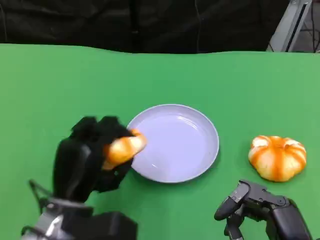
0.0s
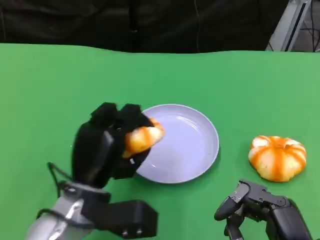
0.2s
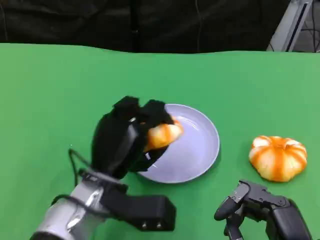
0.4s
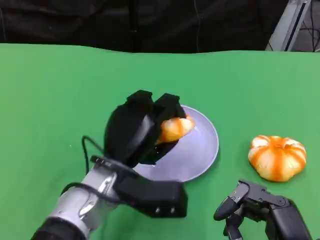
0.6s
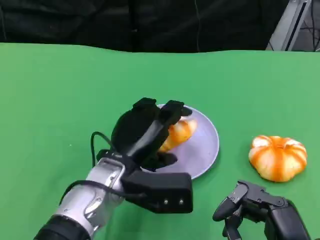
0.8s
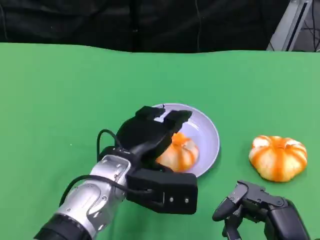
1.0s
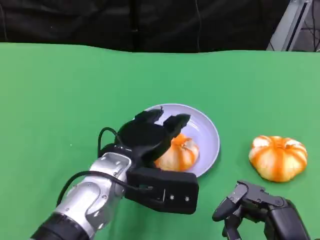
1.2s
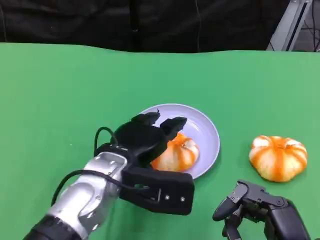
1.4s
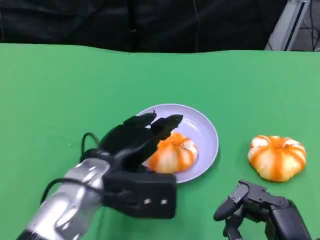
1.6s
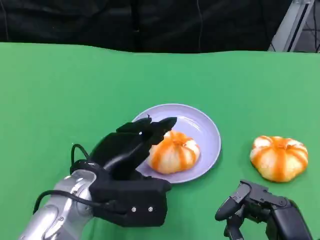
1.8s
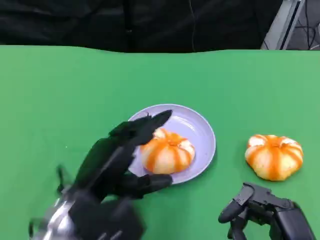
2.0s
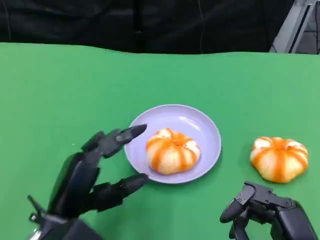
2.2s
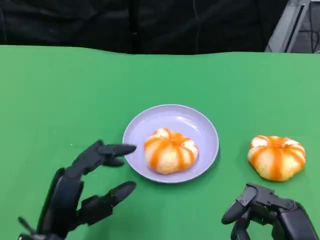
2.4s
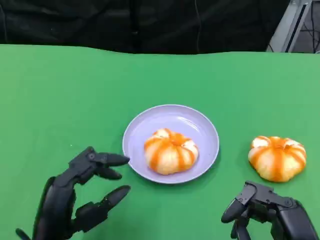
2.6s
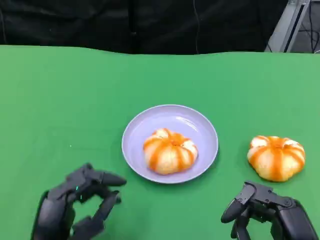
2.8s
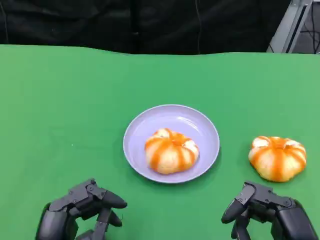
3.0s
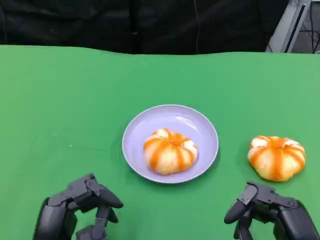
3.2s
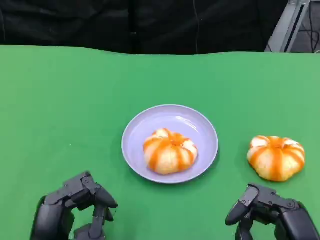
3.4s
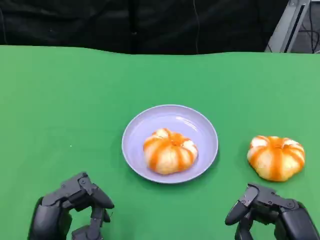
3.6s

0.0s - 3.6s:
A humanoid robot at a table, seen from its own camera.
Task of the whole recording: Grasp the bread from the table and place it into the plate.
1.8s - 3.6s: The left hand heads backward, to the left and downward, covering roughly 15 cm.

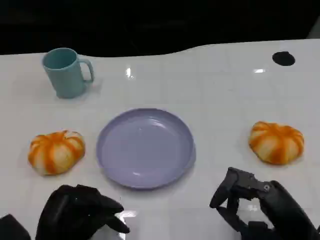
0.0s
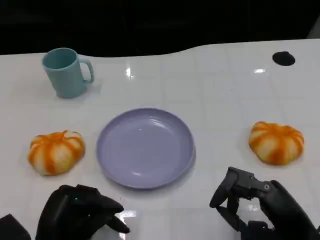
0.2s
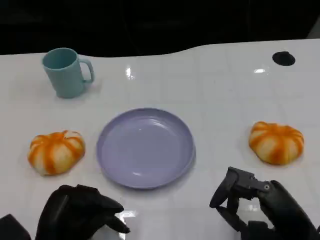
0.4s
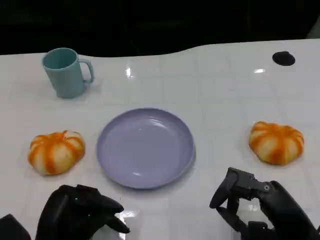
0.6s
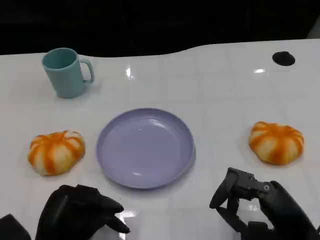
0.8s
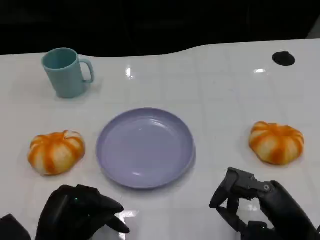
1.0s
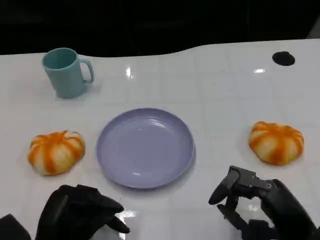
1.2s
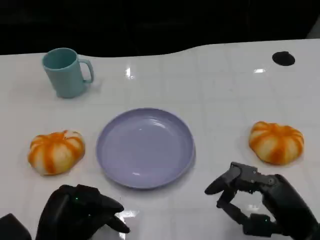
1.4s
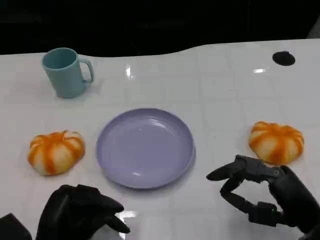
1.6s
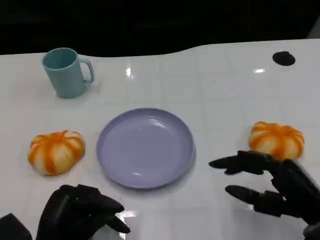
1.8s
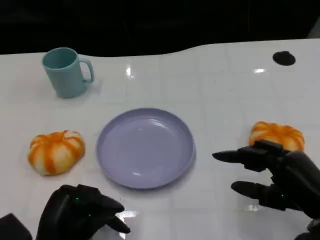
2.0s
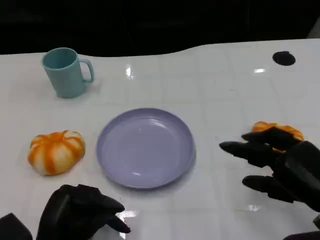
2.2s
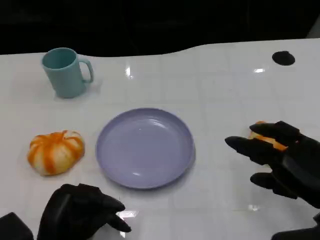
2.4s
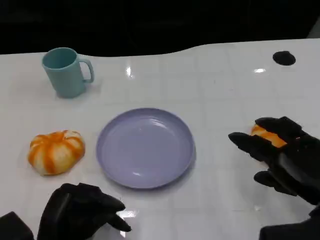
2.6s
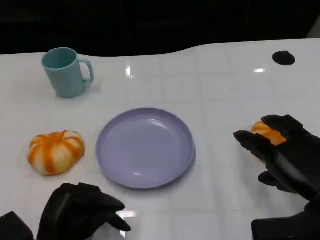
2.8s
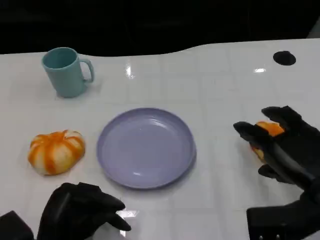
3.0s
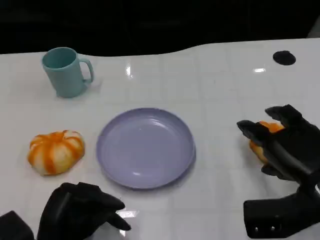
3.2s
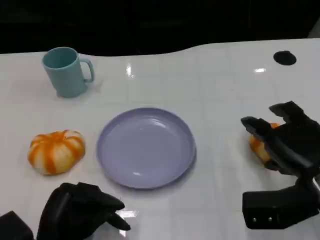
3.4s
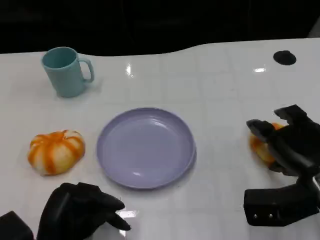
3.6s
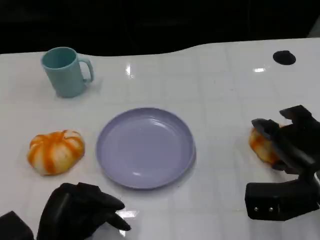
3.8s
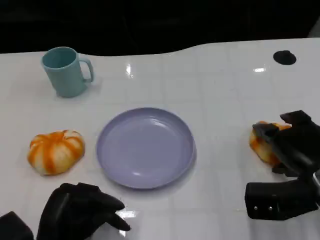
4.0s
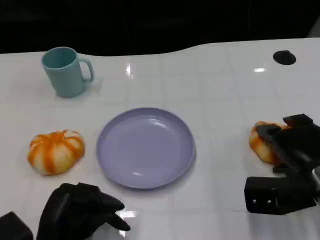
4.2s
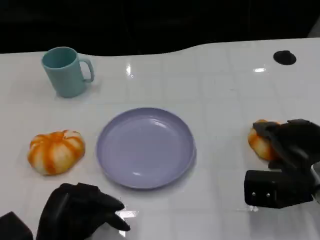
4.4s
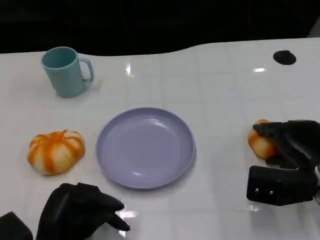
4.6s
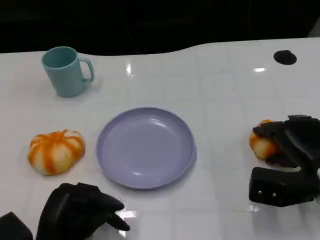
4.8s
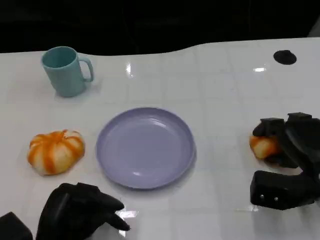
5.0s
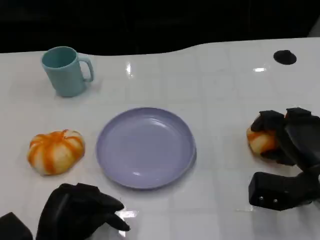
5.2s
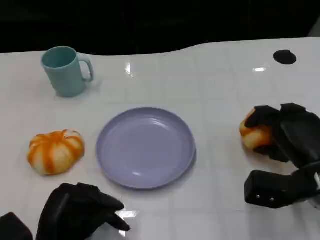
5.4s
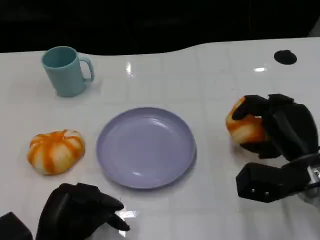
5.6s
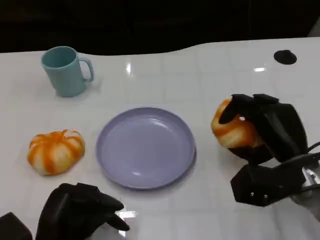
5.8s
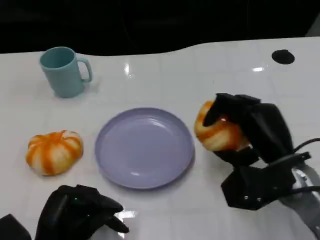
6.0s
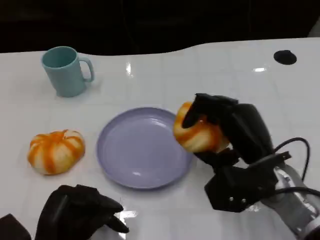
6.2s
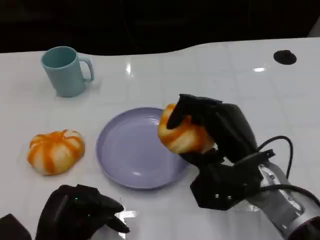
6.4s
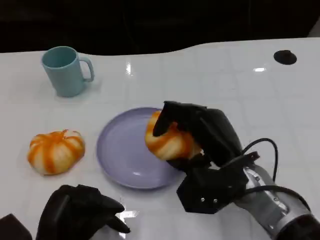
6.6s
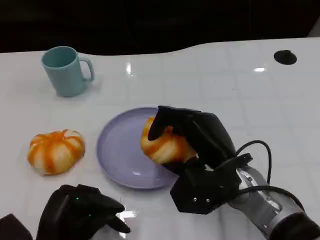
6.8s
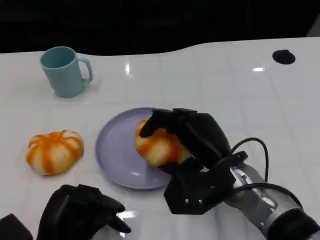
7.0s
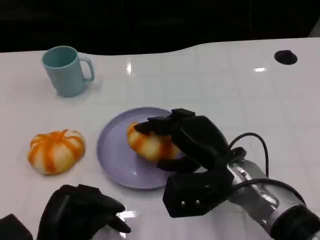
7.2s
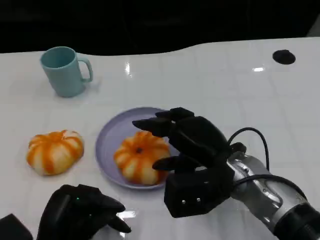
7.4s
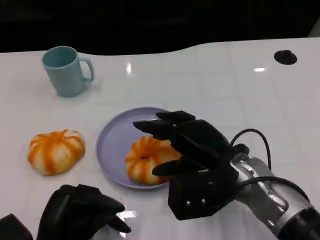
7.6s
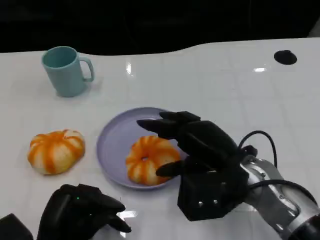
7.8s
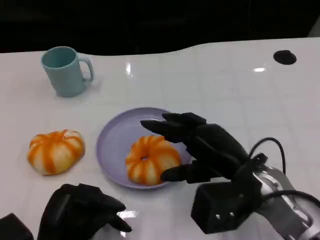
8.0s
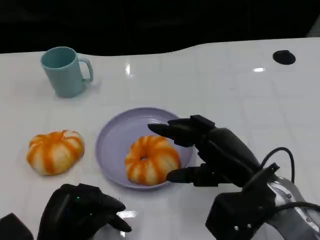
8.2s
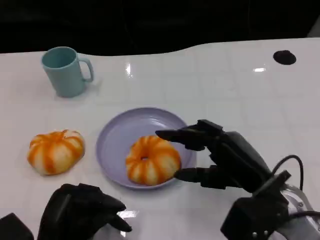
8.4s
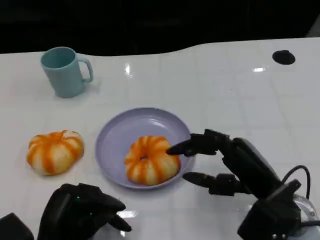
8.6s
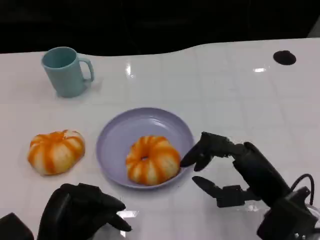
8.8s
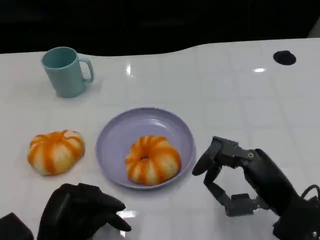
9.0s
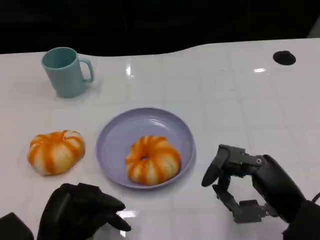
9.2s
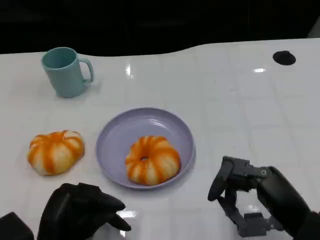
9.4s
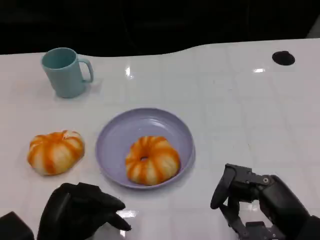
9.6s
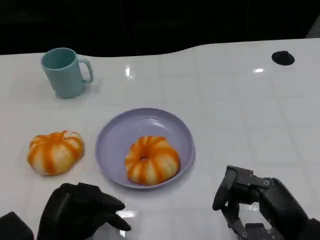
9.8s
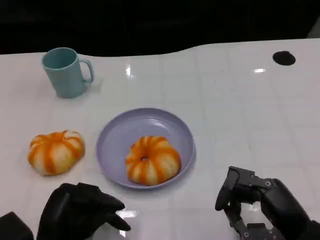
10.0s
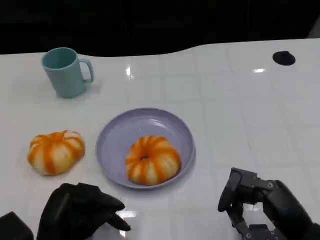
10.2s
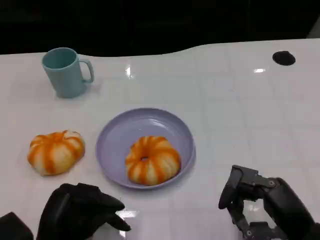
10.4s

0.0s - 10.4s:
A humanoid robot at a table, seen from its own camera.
Task of the whole recording: Grasp the bread from the table and place it into the plate.
0.0s - 1.4s: Both hands stay about where they are.
1.4s - 3.0s: The right hand heads forward, covering approximately 5 cm.
3.0s - 4.4s: The right hand ends up approximately 5 cm from where it was.
4.4s - 6.0s: The right hand is displaced to the left by approximately 5 cm.
6.0s - 7.4s: The right hand travels to the left by some 5 cm.
7.4s - 9.0s: The right hand is displaced to the right and backward by approximately 10 cm.
9.0s - 10.4s: There are only small adjustments of the hands.

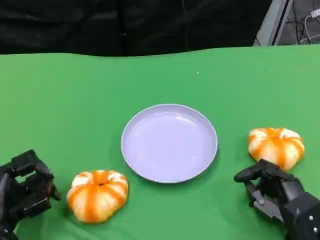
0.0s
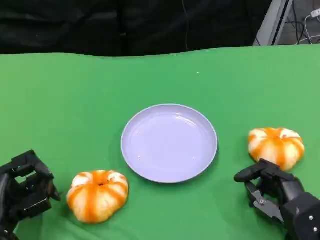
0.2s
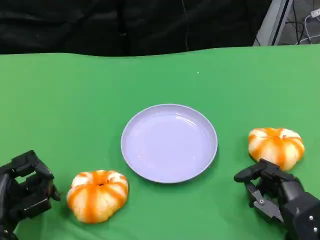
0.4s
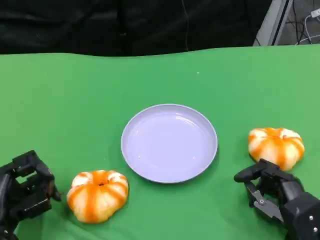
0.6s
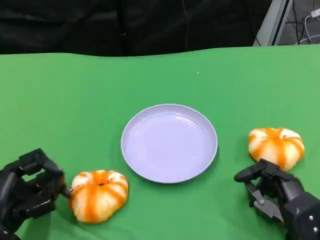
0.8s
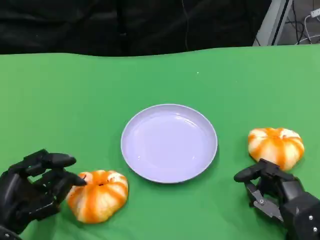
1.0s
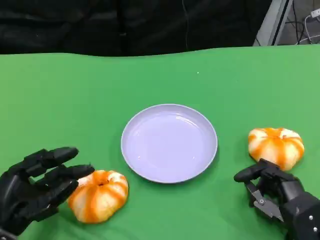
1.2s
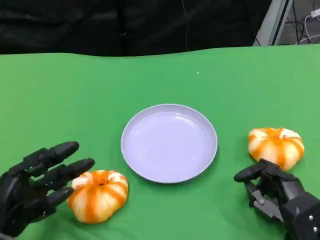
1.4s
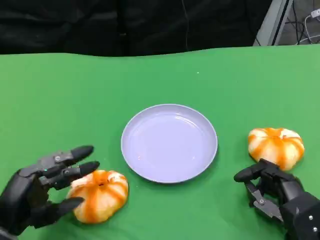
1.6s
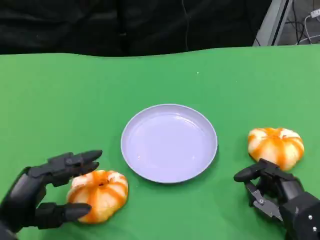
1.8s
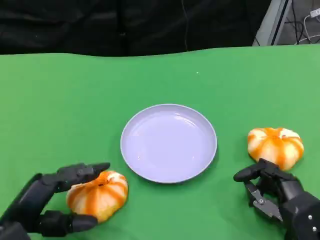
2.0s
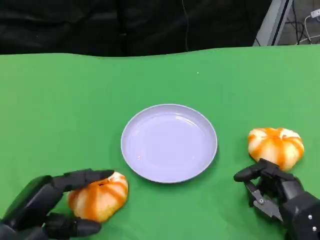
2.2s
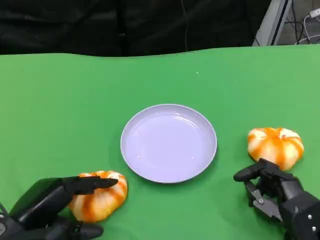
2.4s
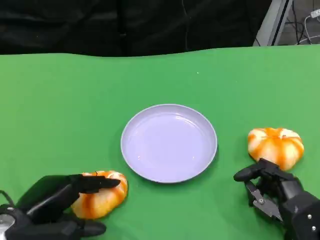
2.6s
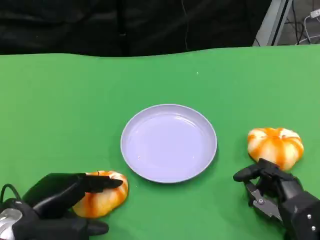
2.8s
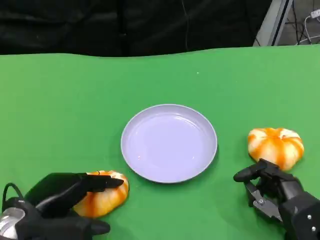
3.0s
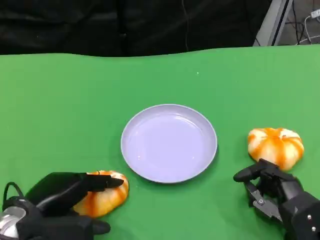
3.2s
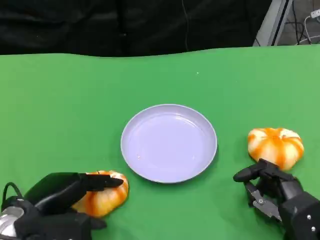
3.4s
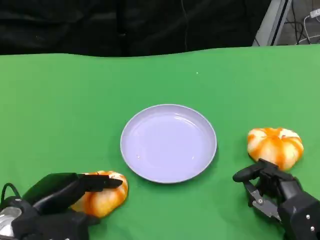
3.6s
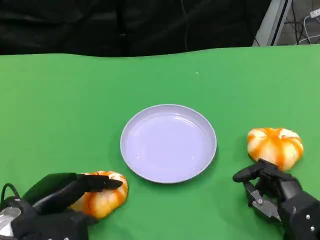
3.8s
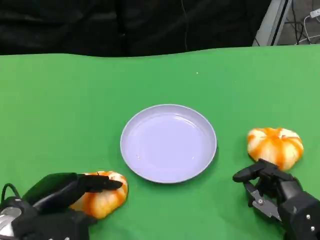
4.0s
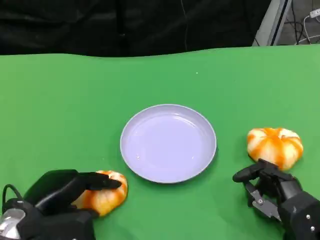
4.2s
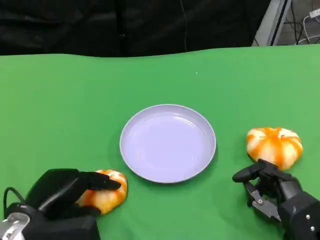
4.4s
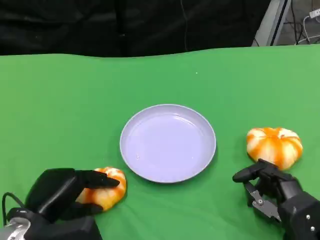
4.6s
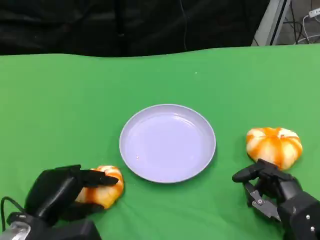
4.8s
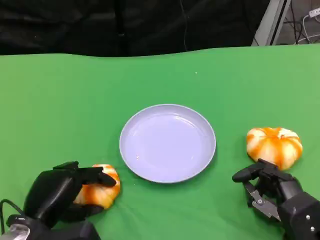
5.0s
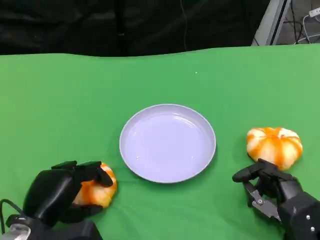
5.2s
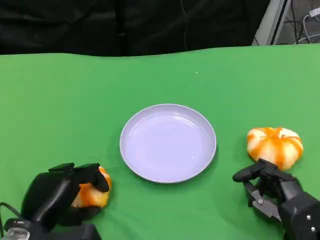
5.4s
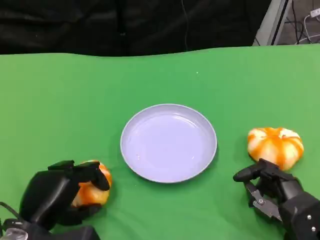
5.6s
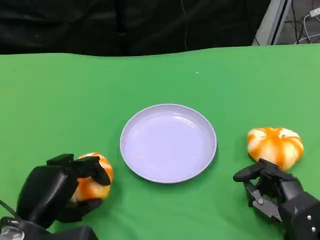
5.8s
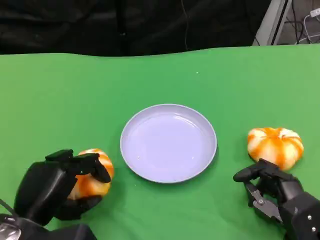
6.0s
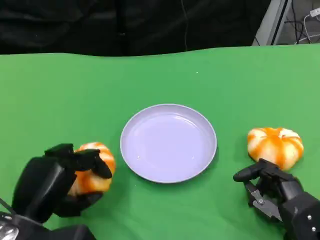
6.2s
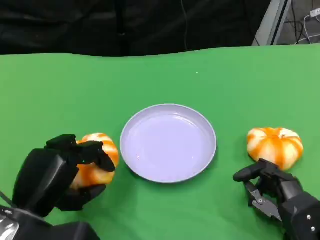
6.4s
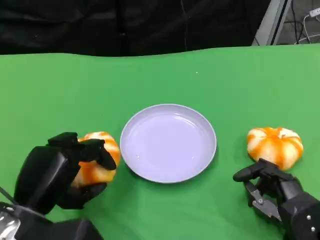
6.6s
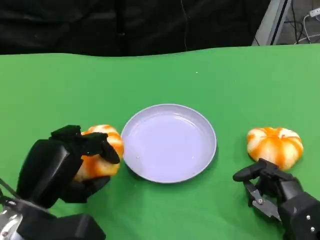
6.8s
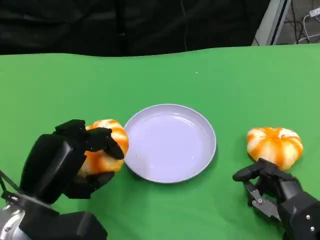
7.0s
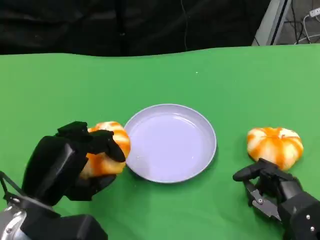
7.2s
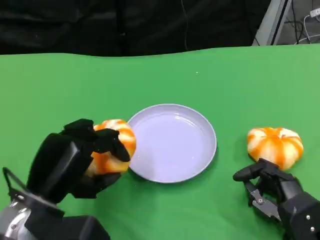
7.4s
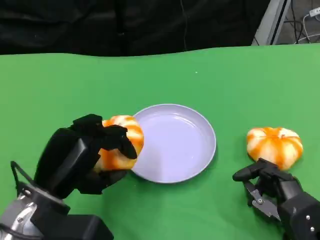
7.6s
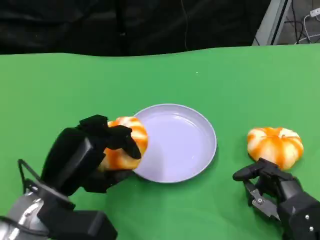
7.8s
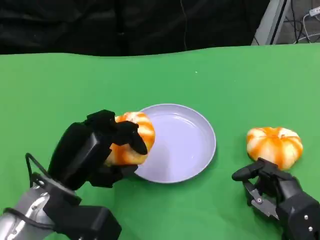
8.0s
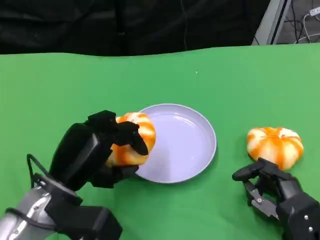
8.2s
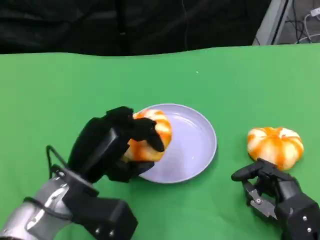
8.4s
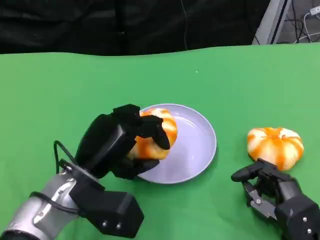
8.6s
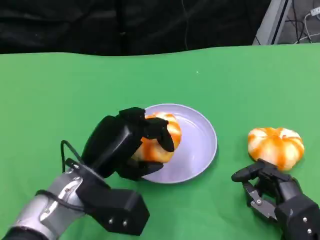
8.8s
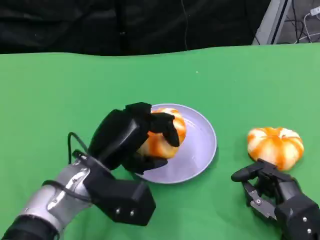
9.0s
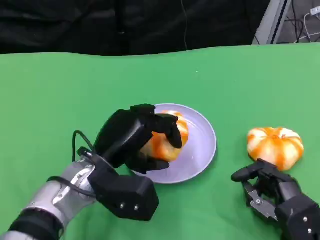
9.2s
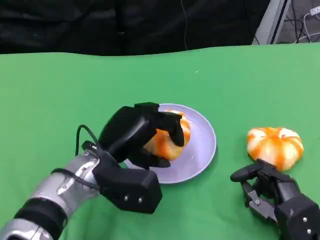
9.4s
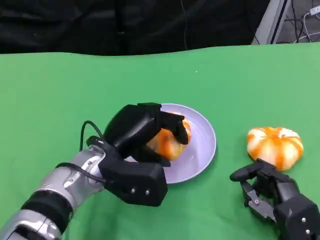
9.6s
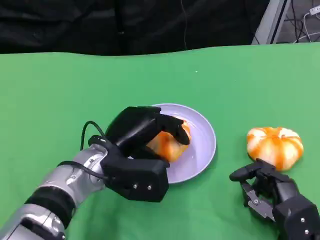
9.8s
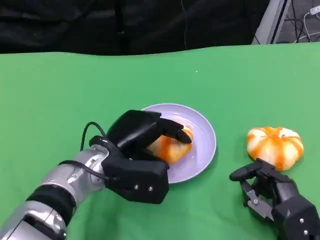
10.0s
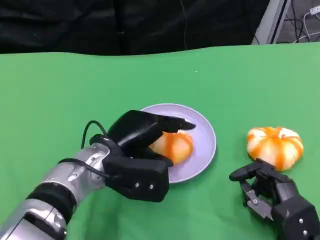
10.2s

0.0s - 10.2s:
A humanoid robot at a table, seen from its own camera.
Task of the whole recording: Grasp the bread from the table and place it into the plate.
1.4s - 3.0s: The left hand shifts by about 5 cm.
3.0s - 4.4s: The hands make only small movements.
4.4s - 5.8s: The hands make only small movements.
5.8s - 7.2s: There are only small adjustments of the hands.
7.2s - 8.8s: The left hand is displaced to the right and forward by some 10 cm.
